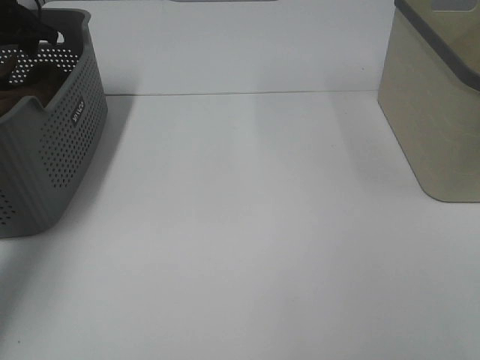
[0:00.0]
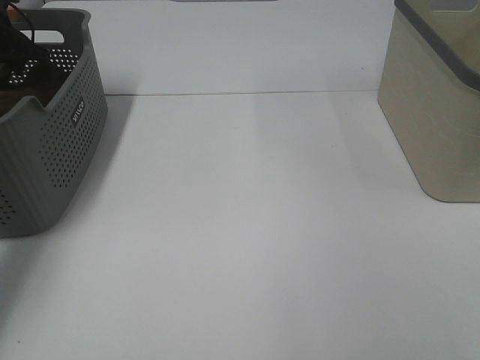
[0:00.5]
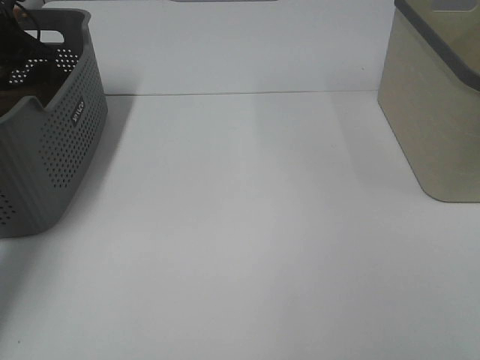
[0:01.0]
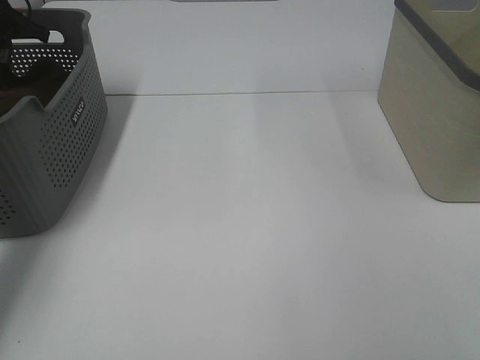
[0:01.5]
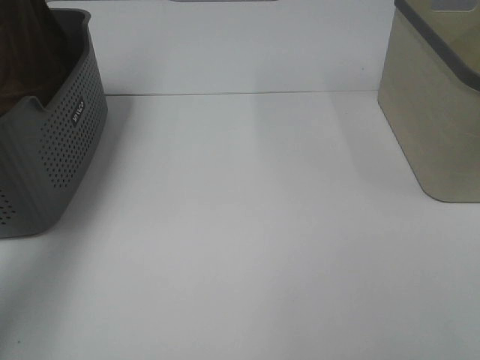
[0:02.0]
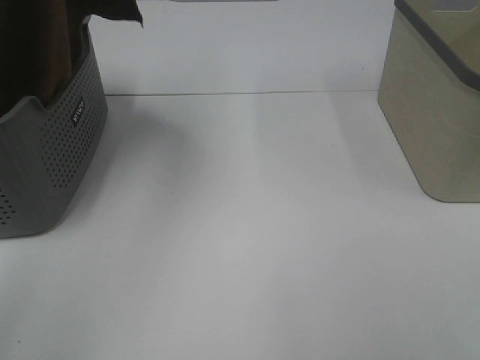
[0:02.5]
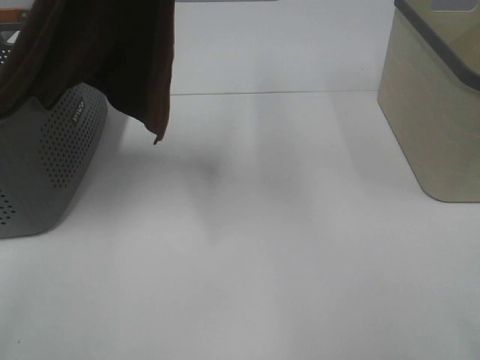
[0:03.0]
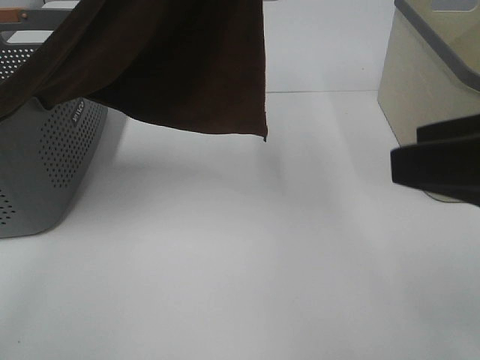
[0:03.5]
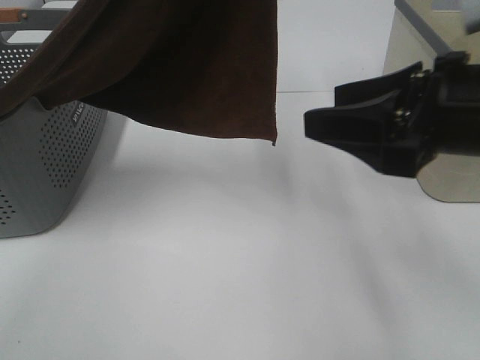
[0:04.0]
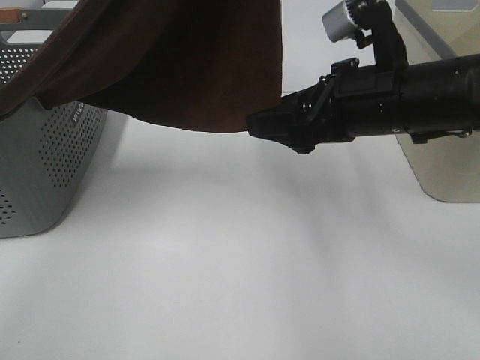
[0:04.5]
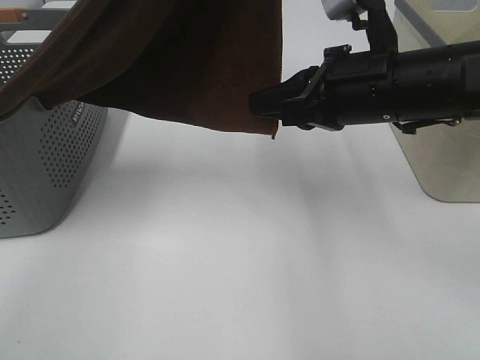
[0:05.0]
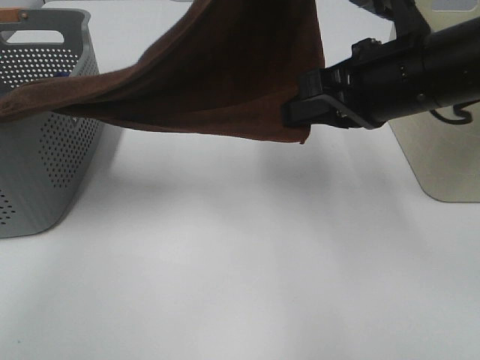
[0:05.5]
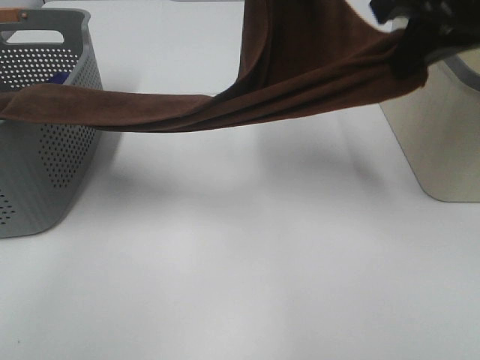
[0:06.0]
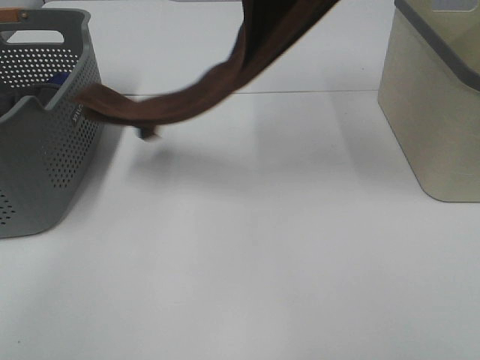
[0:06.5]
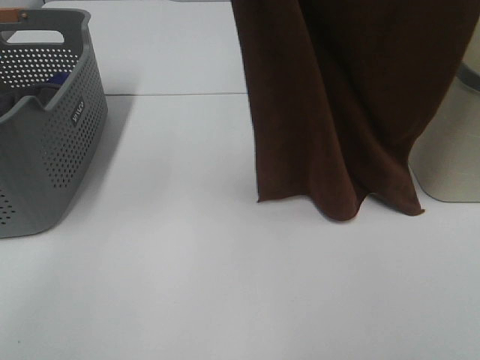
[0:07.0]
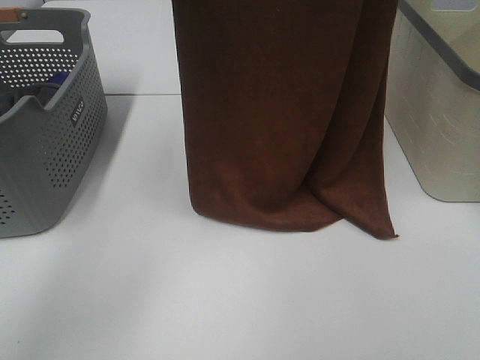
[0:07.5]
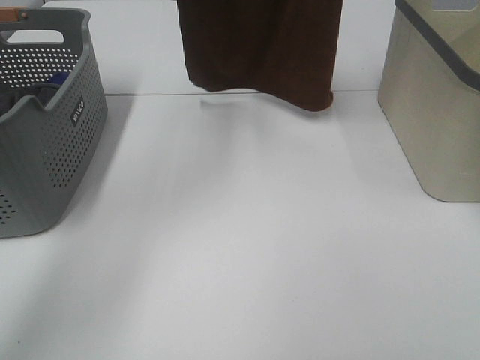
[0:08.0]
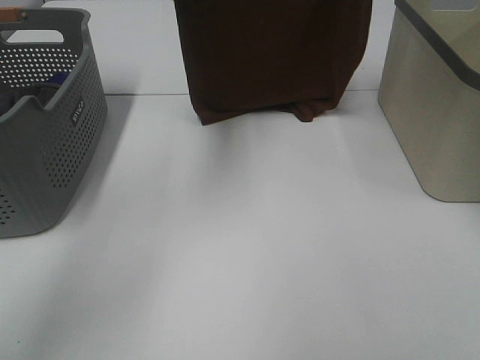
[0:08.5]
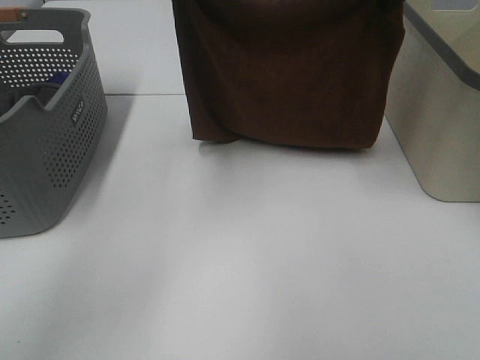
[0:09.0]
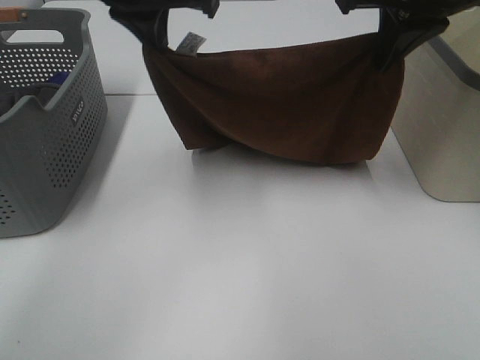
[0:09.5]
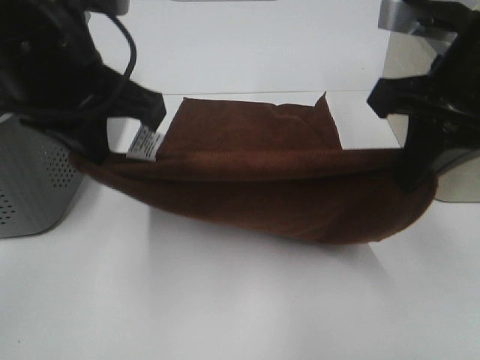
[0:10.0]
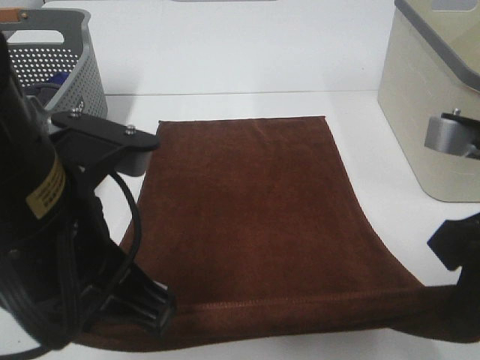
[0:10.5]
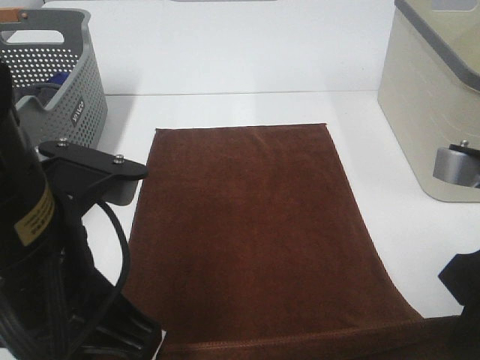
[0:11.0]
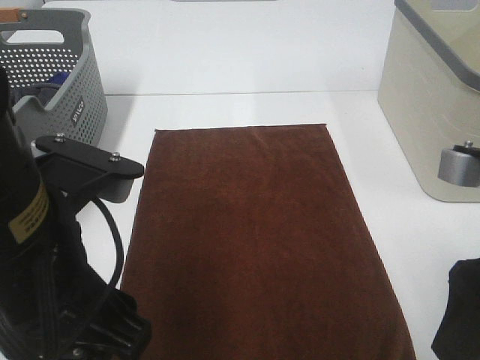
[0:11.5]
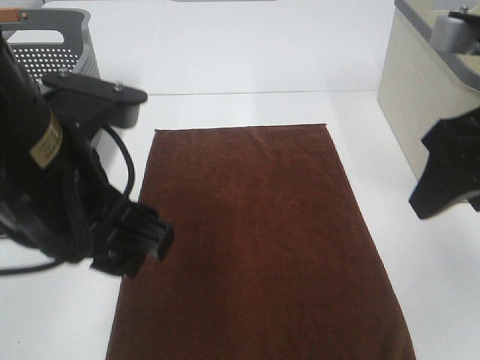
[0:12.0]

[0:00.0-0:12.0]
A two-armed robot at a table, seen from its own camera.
Task of the whole recording: Remove the towel and place it.
Step, 2.5 to 4.0 s: Right hand: grab a corner of the brown towel and straighten it.
Step, 4.5 to 7.5 s: Left hand: spread the brown towel flat on the table.
Step, 4.5 to 7.5 s: Right hand: spread the brown towel flat on the table.
0.0 to 2.0 s: The left gripper shifts approximately 20 cm upward, and closes.
2.0 to 4.0 s: The right gripper heads forward and to the left, covering about 25 cm; the left gripper moves to the right and backward, roughly 30 cm.
4.0 to 6.0 s: The right gripper goes approximately 15 cm upward and forward, and closes up; the left gripper travels forward and downward by some 15 cm.
6.0 to 8.0 s: The left gripper moves up and down over some 15 cm, changing direction 2 times; the right gripper swings up and down, roughly 20 cm each way, with 2 reversals.
8.0 to 10.0 s: The right gripper goes approximately 30 cm downward and backward. The left gripper goes roughly 30 cm backward and downward.
10.0 to 12.0 s: The left gripper heads backward, covering about 5 cm, and opens, while the right gripper opens.

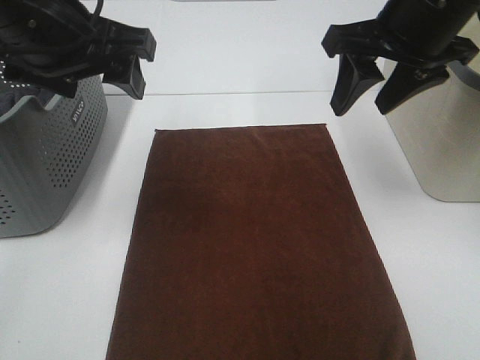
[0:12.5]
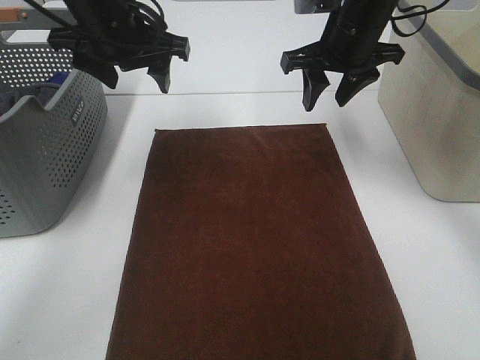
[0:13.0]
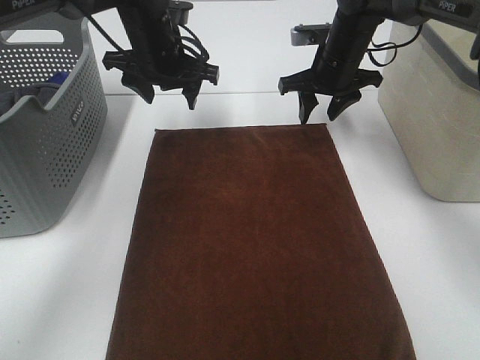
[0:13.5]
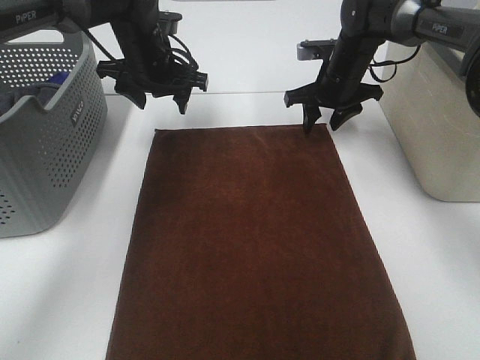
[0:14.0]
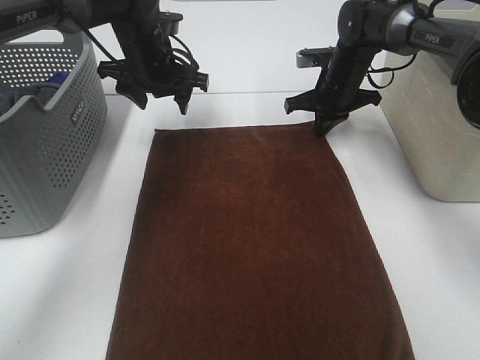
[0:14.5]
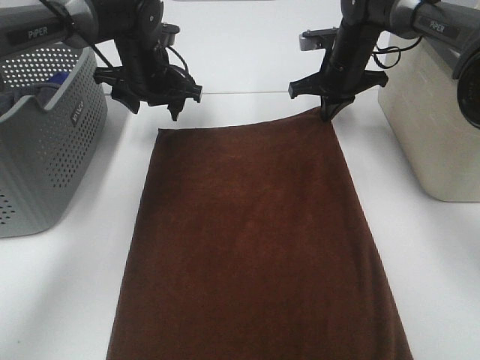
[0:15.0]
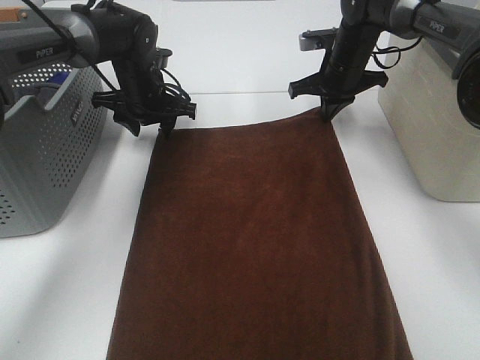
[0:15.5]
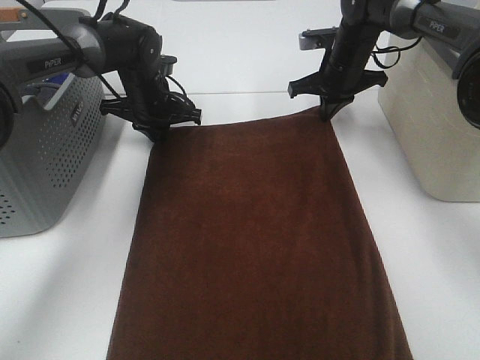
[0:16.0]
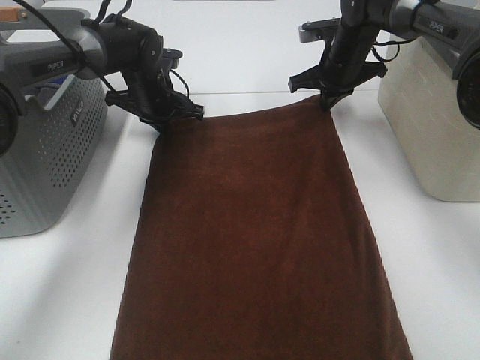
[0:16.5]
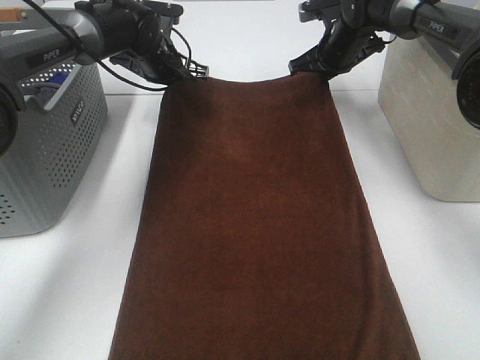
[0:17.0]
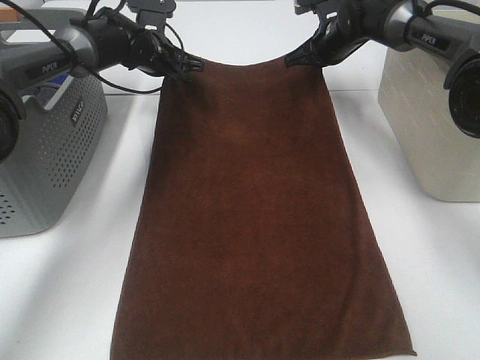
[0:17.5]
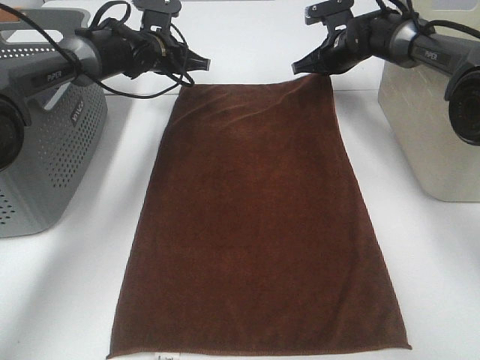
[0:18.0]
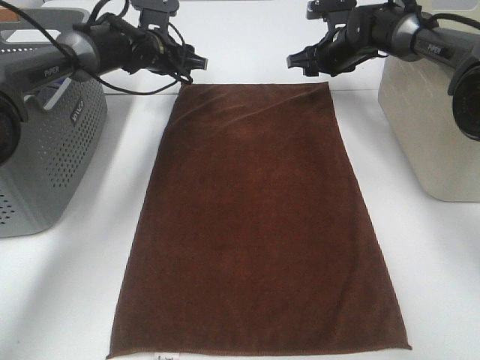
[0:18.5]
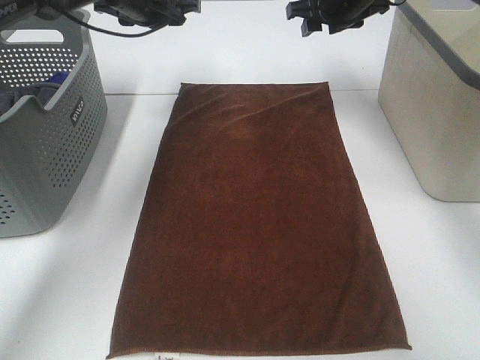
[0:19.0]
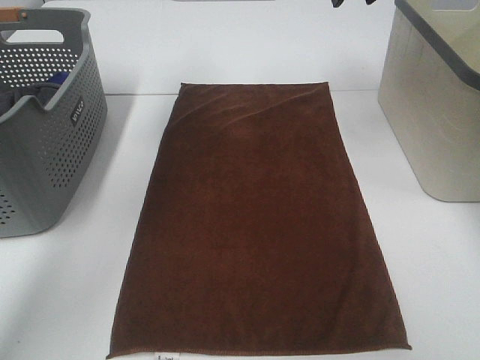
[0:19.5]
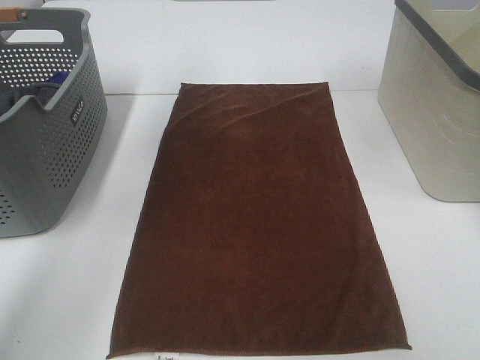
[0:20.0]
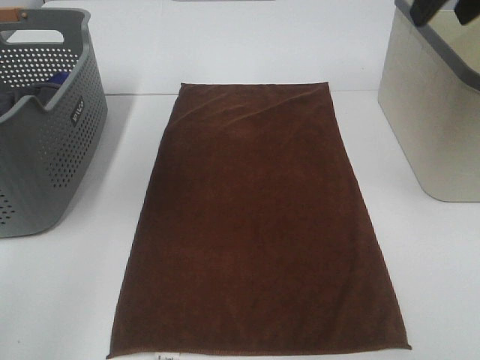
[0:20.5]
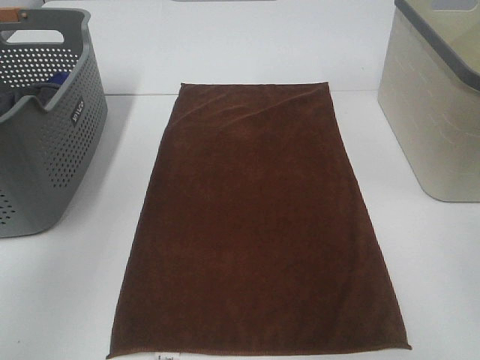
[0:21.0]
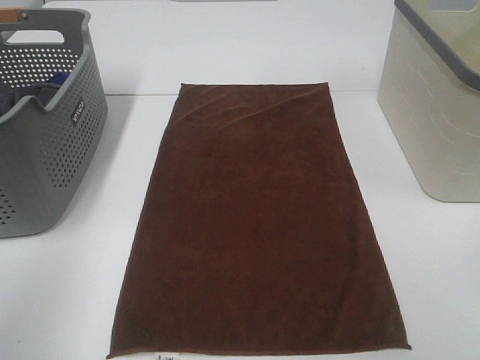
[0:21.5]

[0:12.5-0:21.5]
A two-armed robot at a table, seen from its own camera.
Task of the whole recording: Remove the towel and place it.
12.5 to 14.5 s: Both grippers move forward and downward, roughly 25 cm. The right gripper closes its fingers.
14.5 to 17.0 s: The right gripper changes place by about 5 cm, while the left gripper shifts about 5 cm forward, and closes its fingers.
17.0 to 19.5 s: The left gripper travels upward by some 20 cm, and opens up. The right gripper shifts approximately 20 cm upward and backward, and opens.
19.5 to 21.5 s: The two grippers go approximately 40 cm backward.

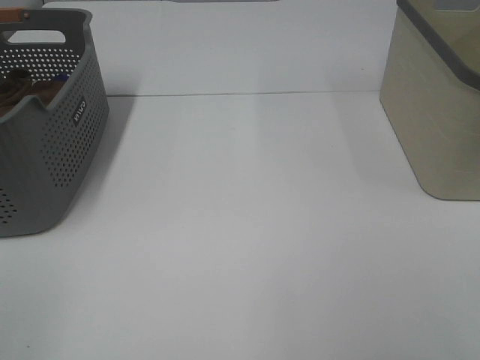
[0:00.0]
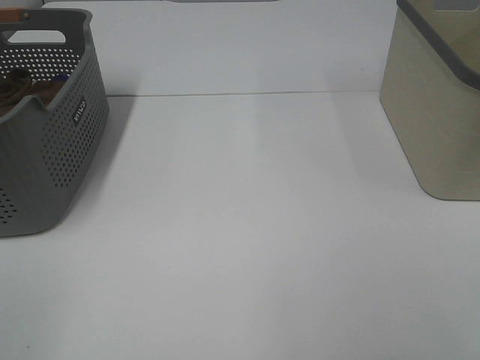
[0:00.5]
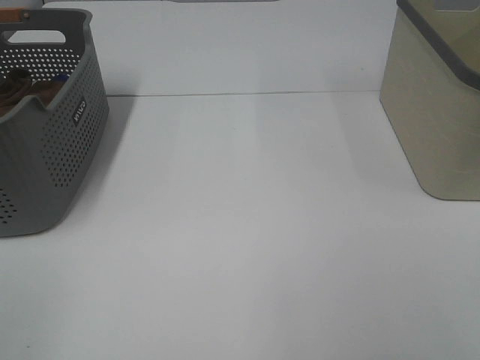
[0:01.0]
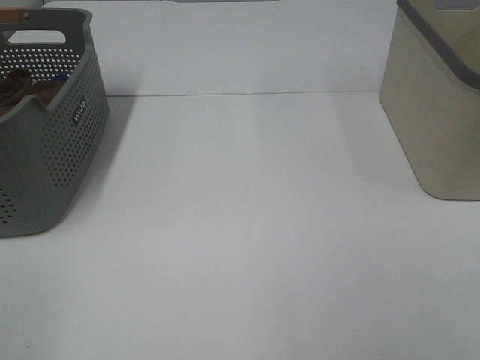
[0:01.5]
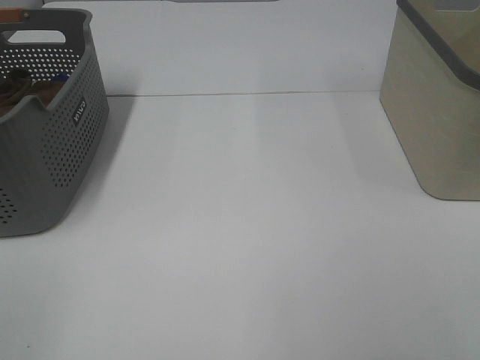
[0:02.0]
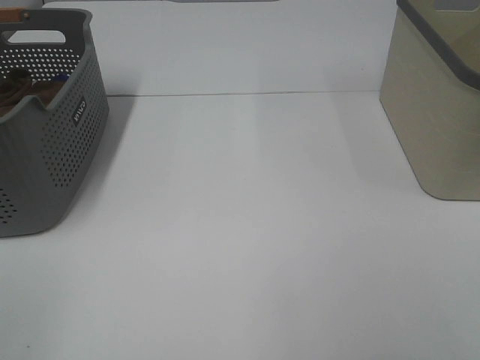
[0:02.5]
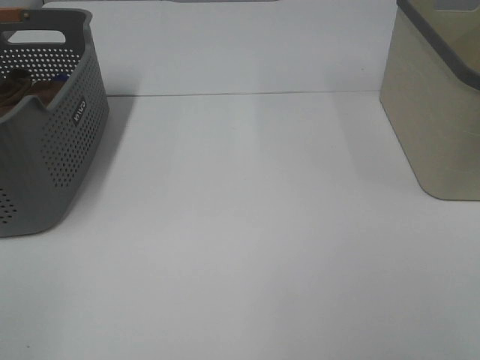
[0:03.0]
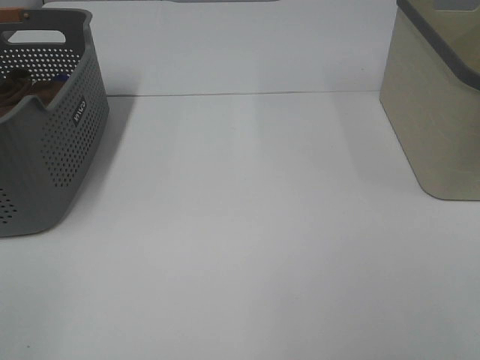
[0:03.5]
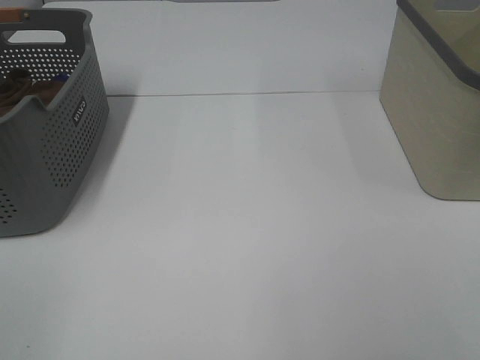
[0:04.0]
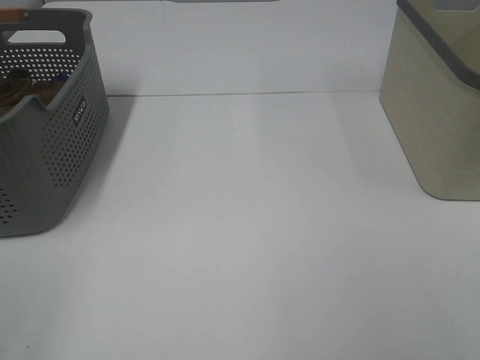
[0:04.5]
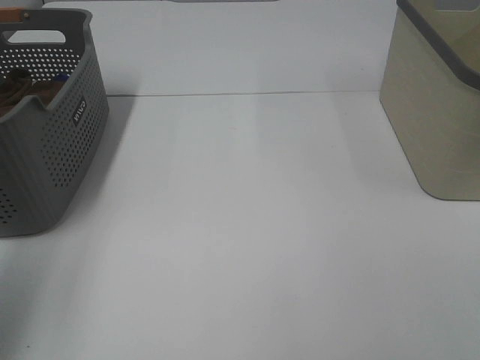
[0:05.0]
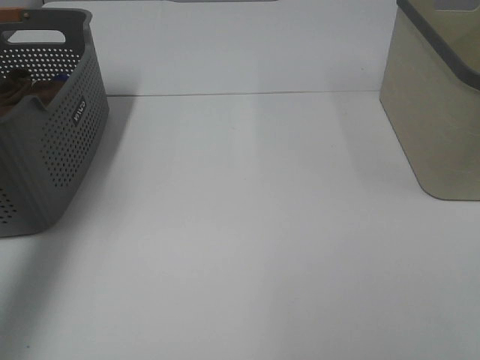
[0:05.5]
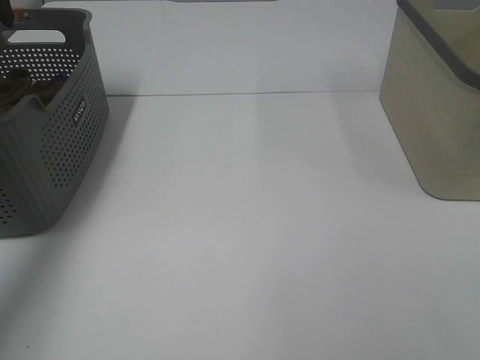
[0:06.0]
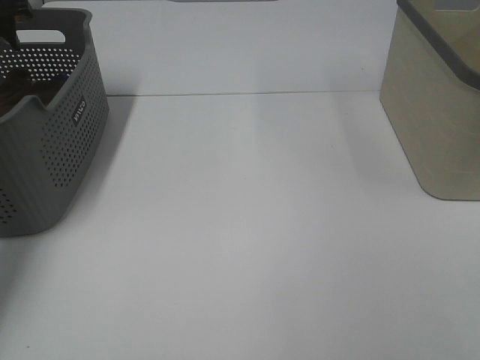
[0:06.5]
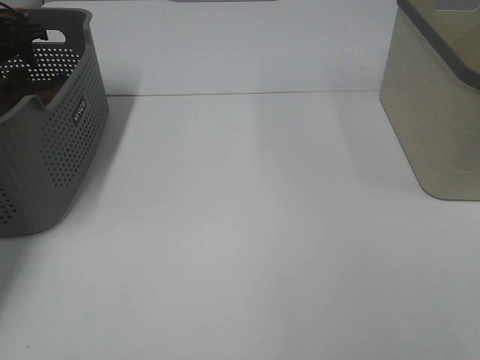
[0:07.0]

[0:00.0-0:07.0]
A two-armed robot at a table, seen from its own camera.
Task of the whole recording: Remove the towel and place it.
0.0 to 3.5 s: Both grippers stay put.
3.5 to 5.0 s: The left gripper shifts roughly 15 cm forward.
5.0 to 7.0 s: The left gripper is displaced forward by about 40 cm.
